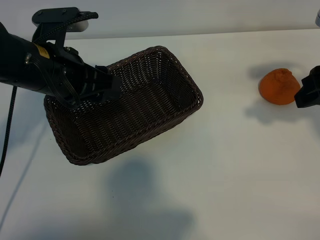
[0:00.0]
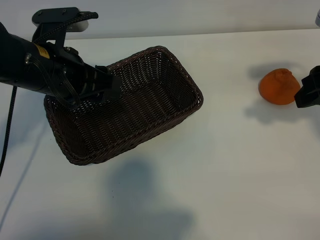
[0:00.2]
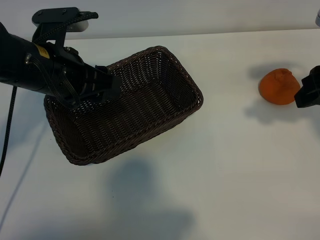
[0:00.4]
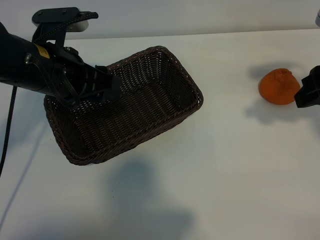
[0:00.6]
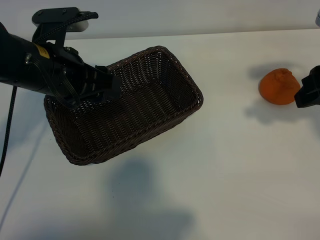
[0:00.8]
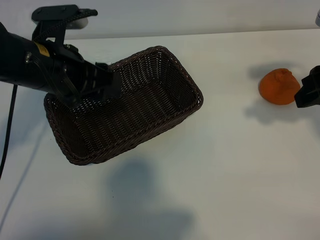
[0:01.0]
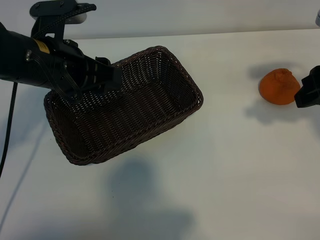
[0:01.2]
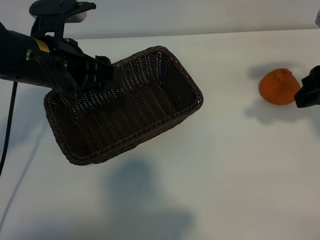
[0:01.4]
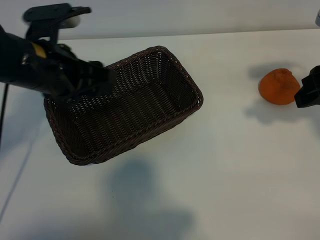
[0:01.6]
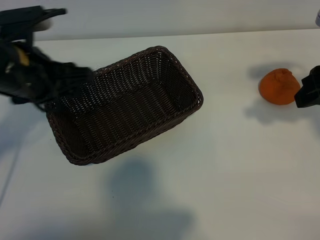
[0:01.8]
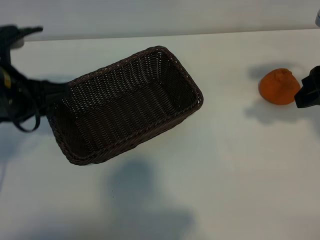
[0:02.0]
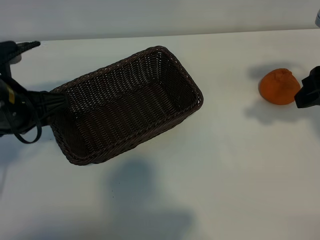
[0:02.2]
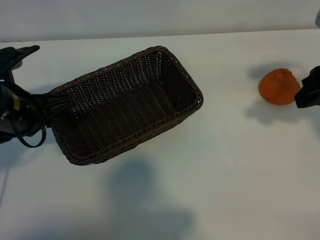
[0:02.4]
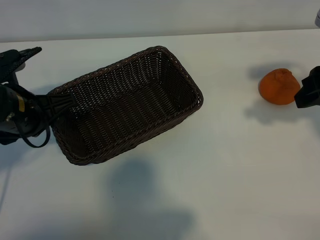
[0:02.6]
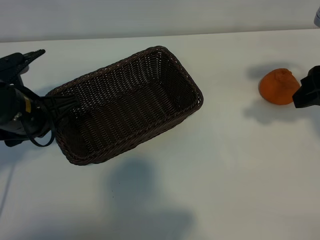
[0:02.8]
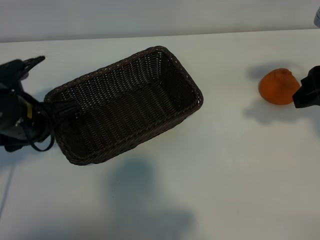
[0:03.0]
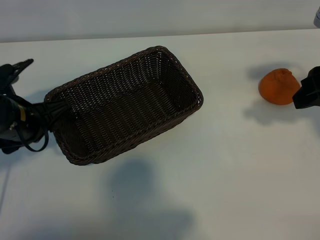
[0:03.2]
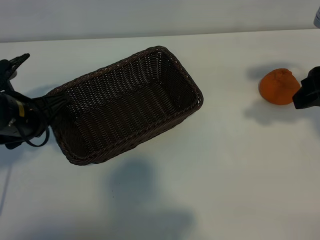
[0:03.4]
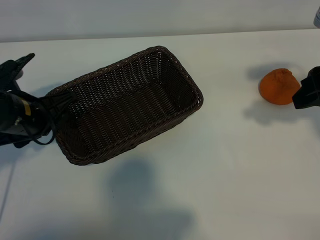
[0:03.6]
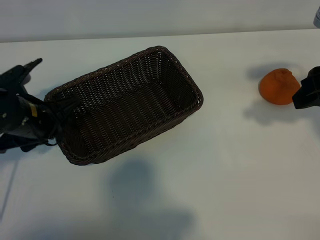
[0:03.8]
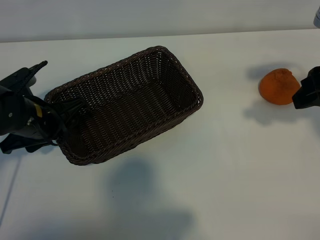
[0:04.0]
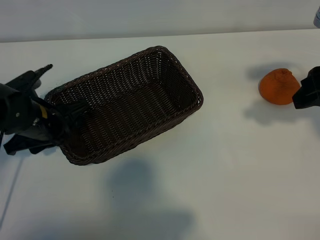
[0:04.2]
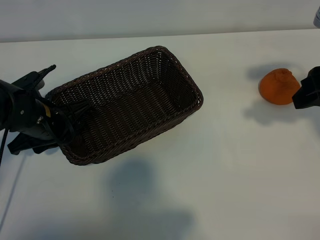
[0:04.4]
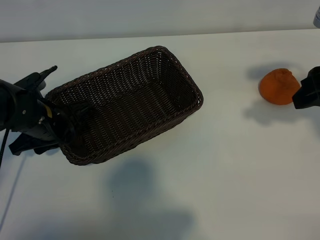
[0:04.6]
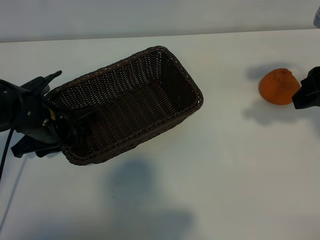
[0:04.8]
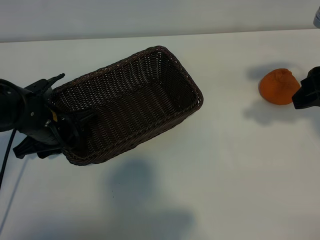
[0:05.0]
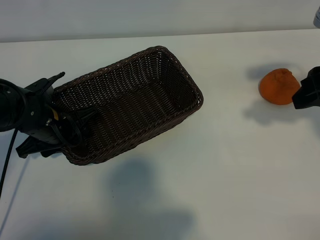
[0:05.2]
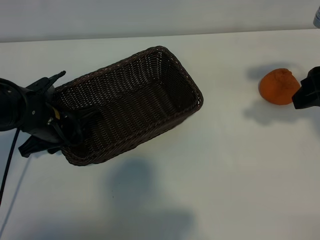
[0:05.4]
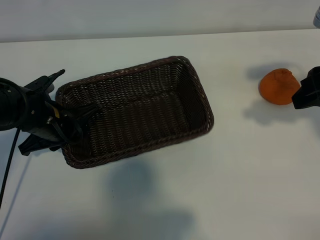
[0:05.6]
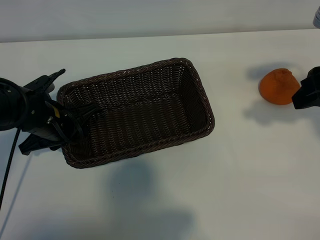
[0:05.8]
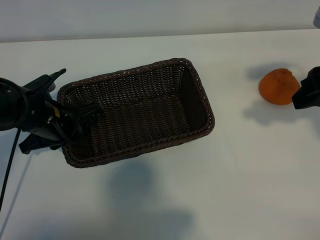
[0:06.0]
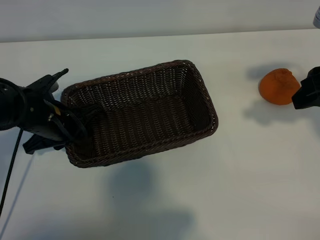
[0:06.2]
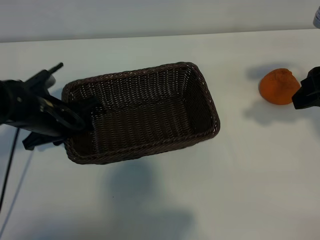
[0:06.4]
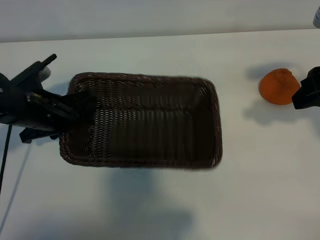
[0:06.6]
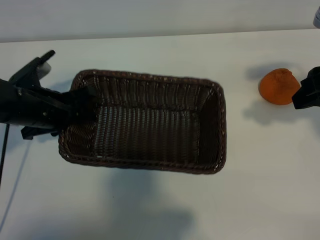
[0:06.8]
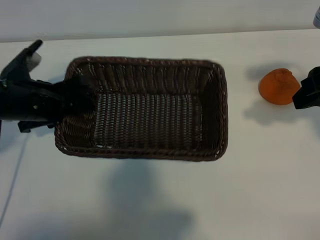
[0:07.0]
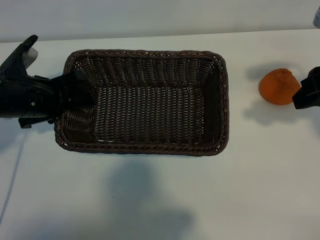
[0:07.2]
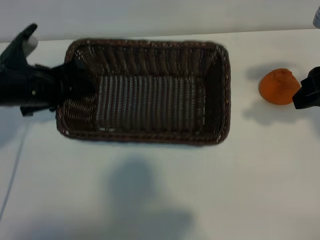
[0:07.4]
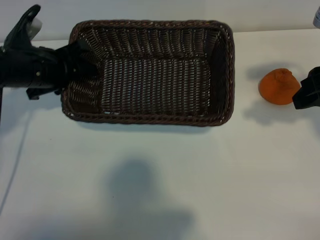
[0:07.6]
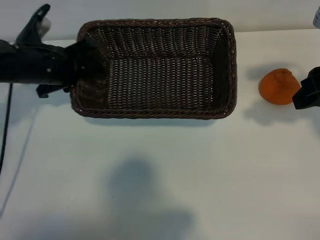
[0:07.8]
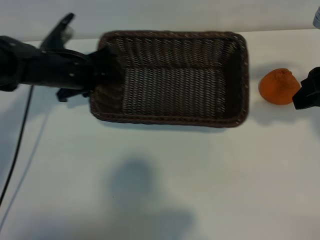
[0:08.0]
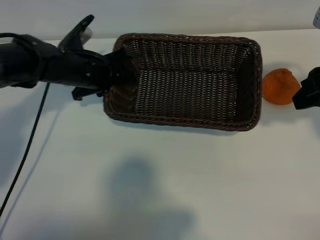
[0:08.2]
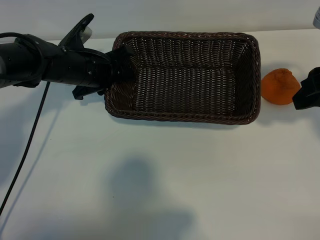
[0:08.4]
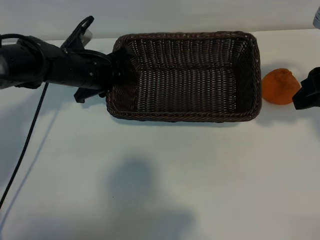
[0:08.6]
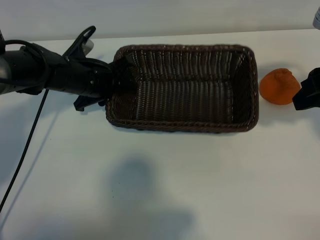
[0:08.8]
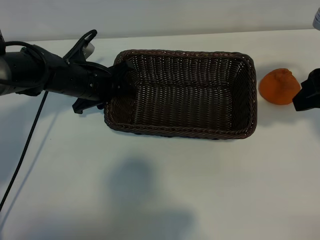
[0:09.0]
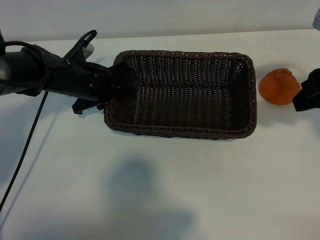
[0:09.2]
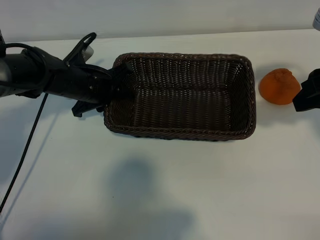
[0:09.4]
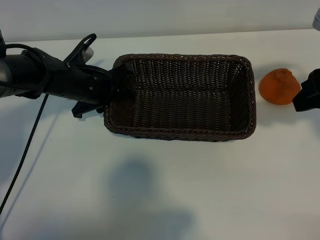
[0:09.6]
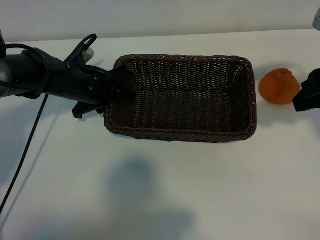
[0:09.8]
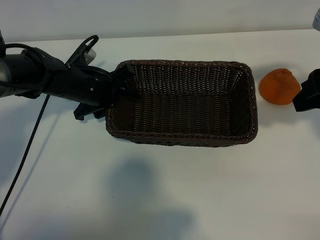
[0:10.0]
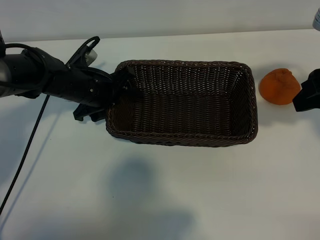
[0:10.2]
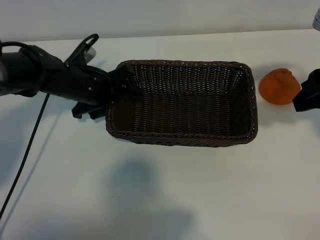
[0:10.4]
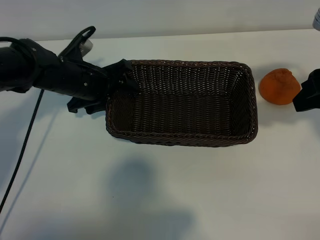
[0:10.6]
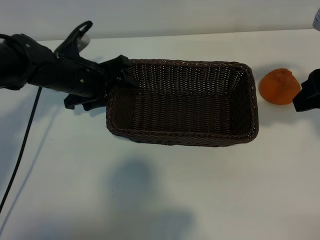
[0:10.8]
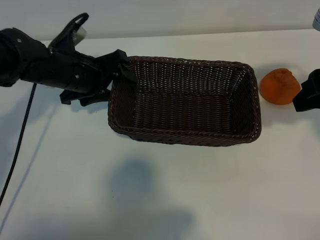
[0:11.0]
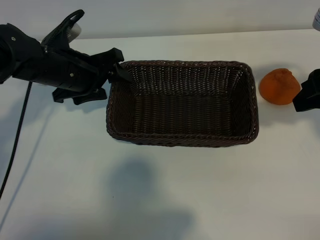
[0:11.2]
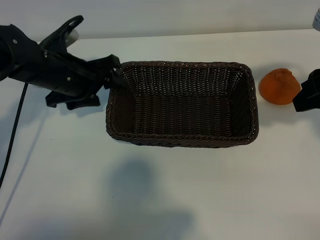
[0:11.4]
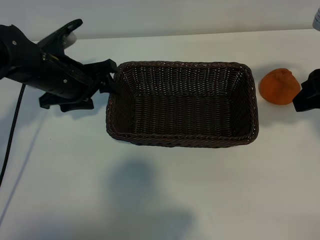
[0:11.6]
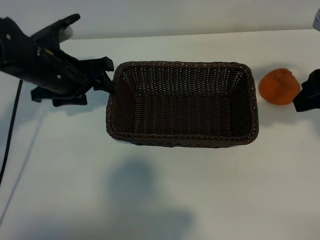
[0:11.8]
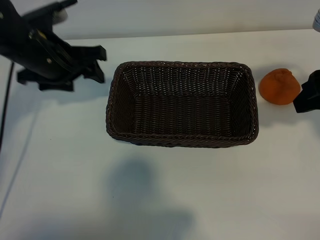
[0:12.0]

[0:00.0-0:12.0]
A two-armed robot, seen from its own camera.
Task of the whole recording: pick up the orange and put it into the basket.
Step, 0:01.0 to 0:05.6: Grasp the basket with left gripper.
Step, 0:05.8 to 0:10.0: Place the basket in the center of view with left gripper.

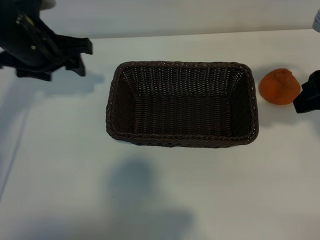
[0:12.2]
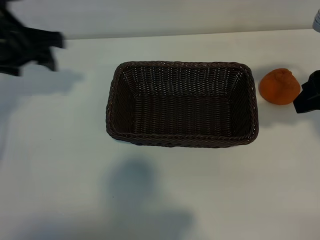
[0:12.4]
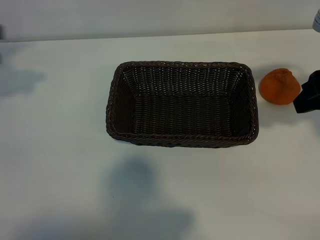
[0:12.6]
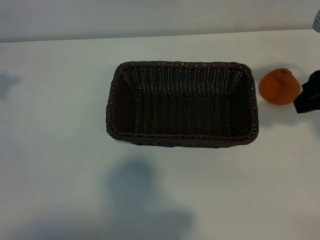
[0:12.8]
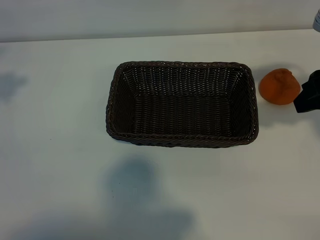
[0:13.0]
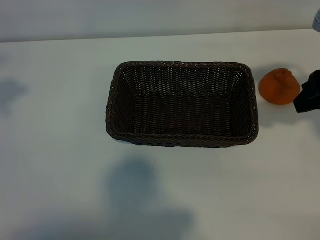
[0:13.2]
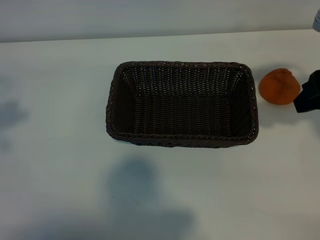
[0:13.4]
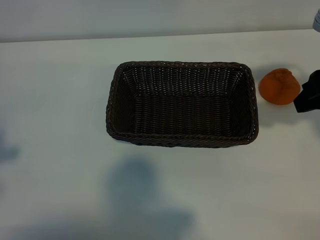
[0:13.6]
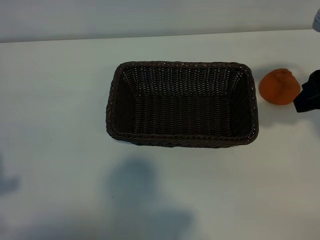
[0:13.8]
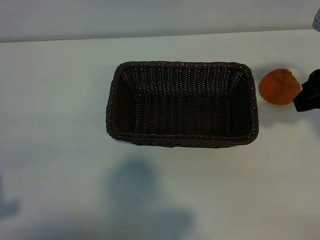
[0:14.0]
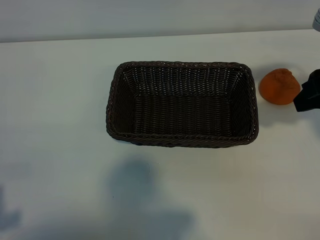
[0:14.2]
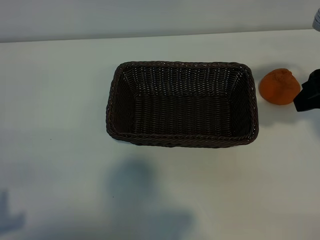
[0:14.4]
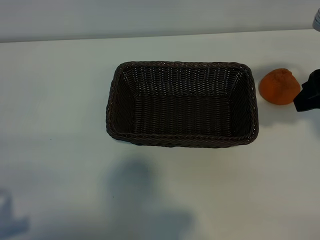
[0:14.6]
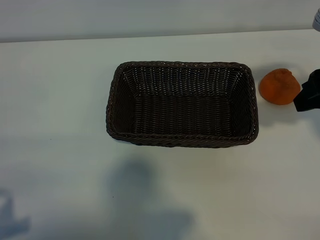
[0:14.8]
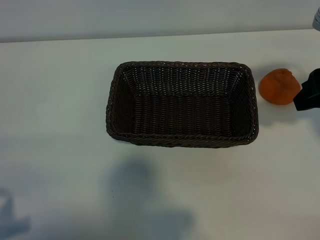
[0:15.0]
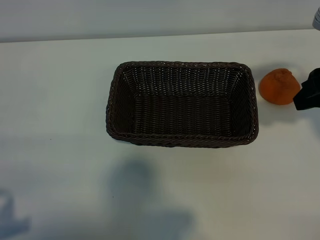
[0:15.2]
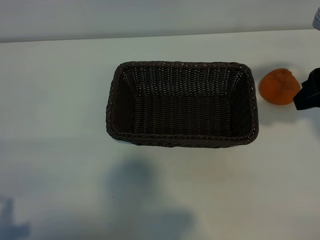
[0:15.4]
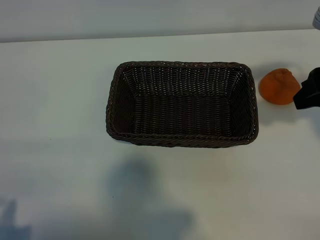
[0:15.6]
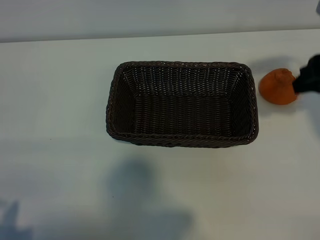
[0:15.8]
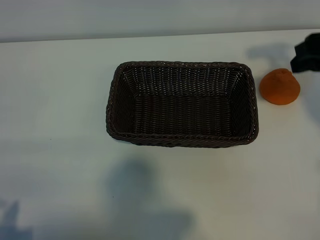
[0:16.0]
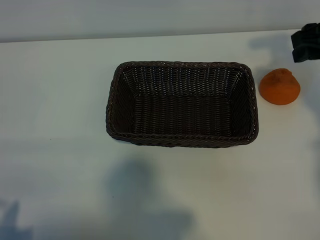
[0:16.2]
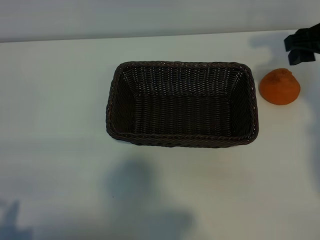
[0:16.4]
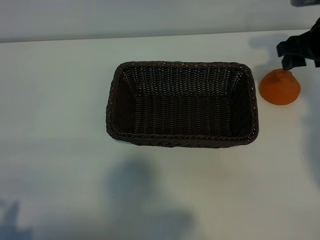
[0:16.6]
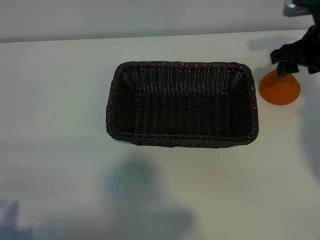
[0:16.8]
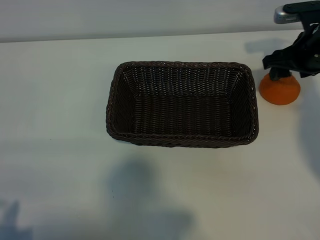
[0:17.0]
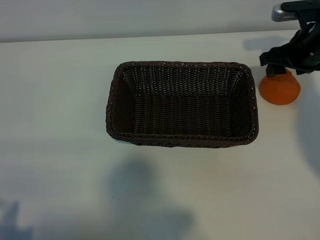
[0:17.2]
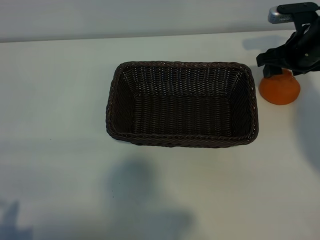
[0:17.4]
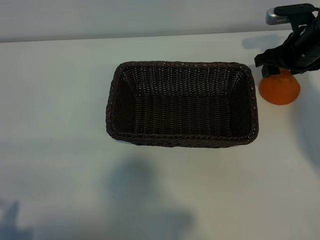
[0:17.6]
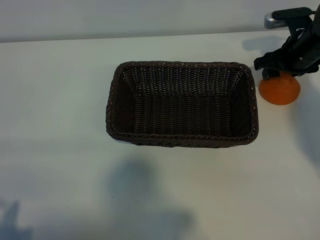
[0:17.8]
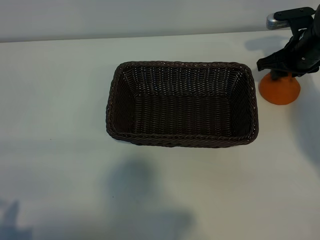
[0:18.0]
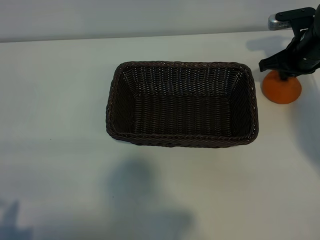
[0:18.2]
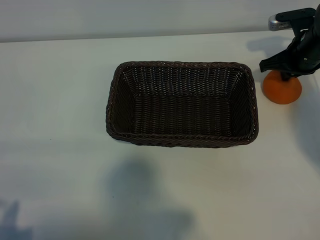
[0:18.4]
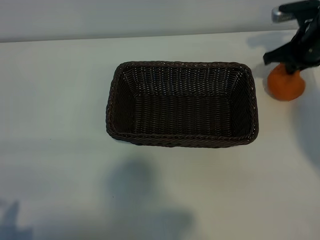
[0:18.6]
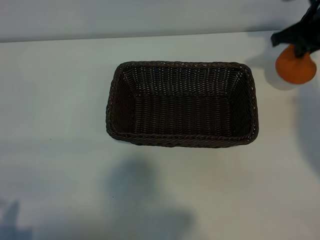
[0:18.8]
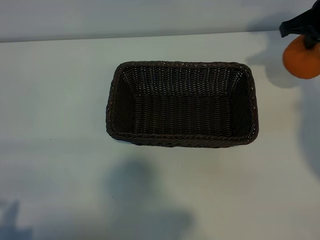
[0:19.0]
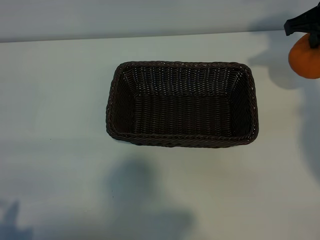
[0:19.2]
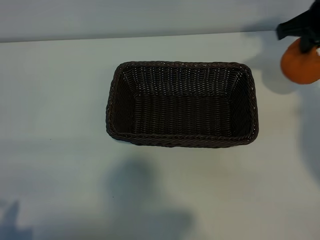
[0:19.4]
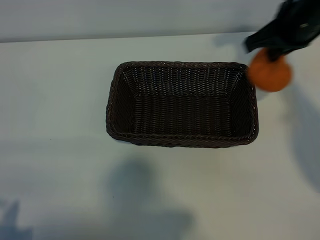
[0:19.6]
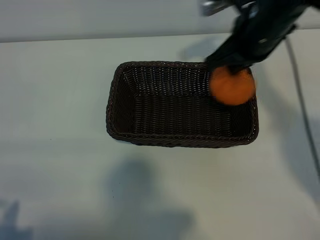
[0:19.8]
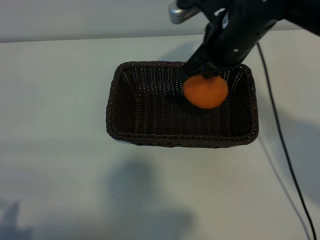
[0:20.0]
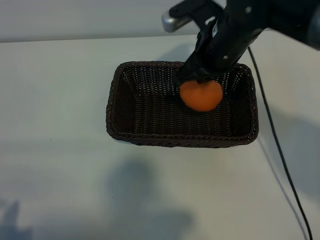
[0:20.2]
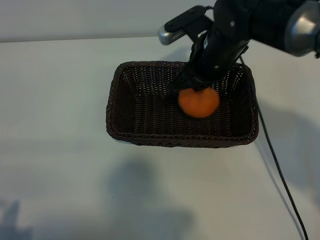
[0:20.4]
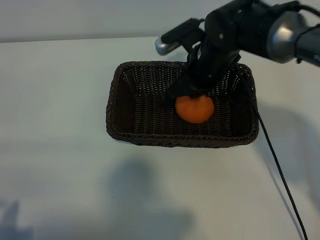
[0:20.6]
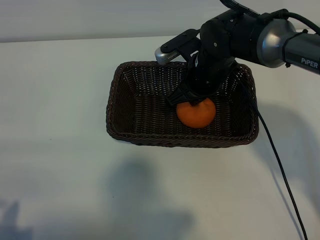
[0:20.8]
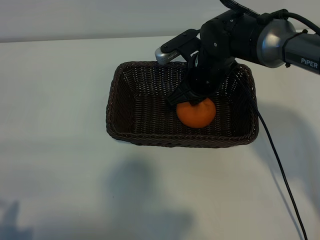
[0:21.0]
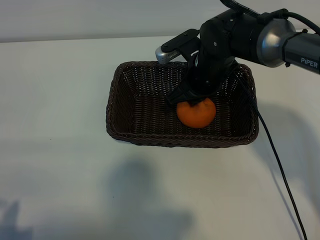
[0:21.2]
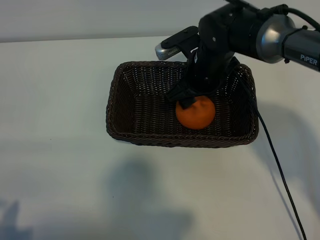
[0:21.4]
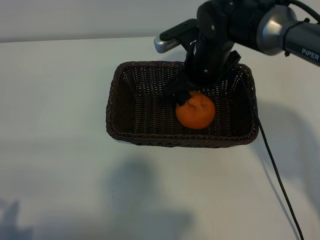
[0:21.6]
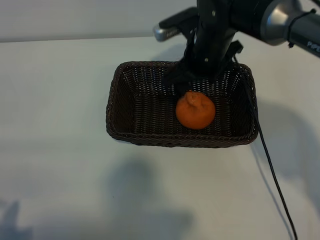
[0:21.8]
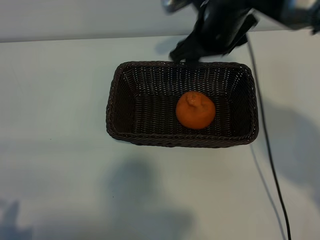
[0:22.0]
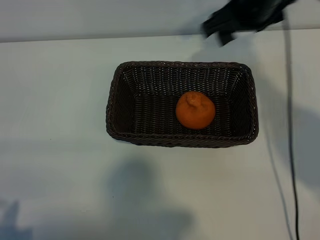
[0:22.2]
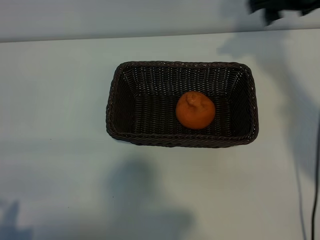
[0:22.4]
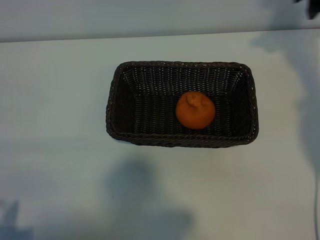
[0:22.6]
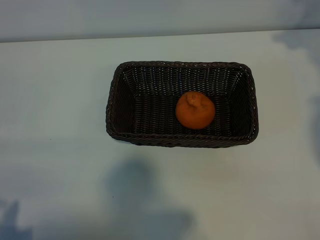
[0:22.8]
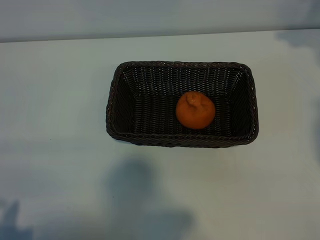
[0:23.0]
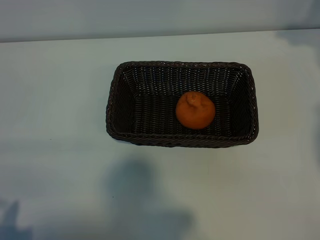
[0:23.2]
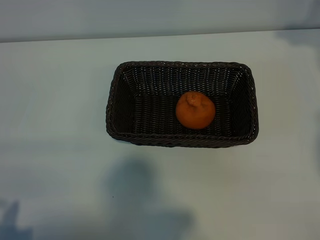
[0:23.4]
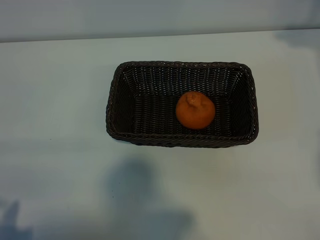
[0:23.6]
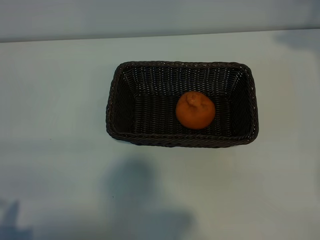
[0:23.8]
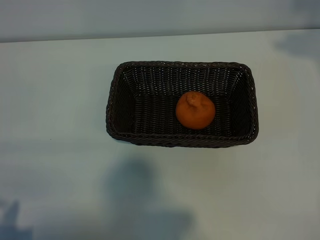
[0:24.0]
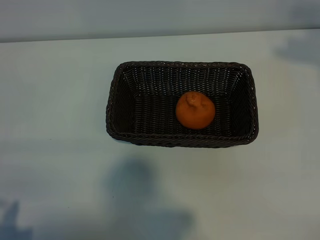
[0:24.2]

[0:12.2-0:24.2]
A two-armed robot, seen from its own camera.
Task of the whole recording: pick up the orange and put it into the basket.
Step, 0:12.2 to 0:18.4: Grasp the orange with right gripper.
Step, 0:18.6 to 0:21.4: Place the orange in the basket with right gripper.
